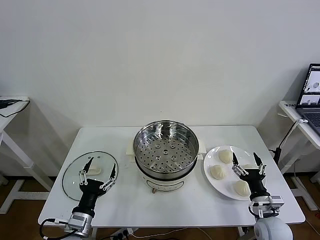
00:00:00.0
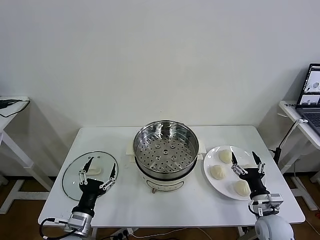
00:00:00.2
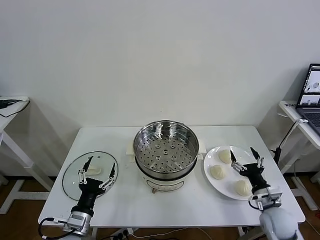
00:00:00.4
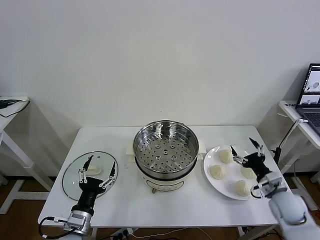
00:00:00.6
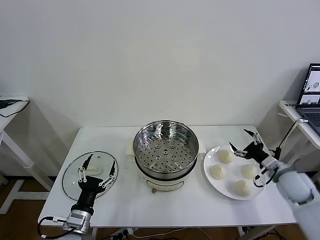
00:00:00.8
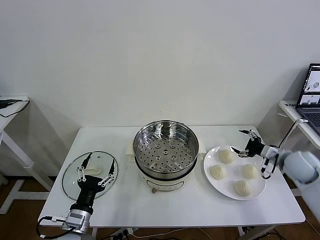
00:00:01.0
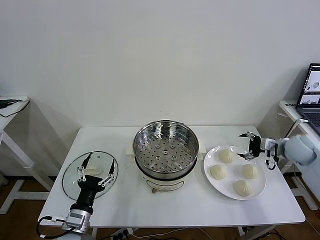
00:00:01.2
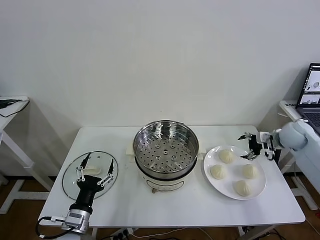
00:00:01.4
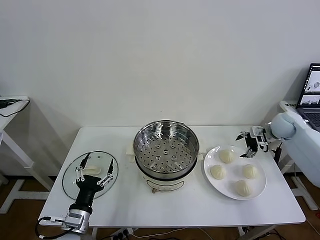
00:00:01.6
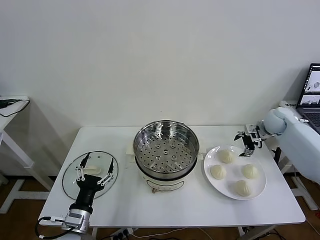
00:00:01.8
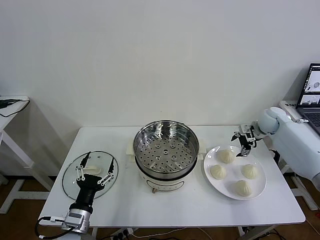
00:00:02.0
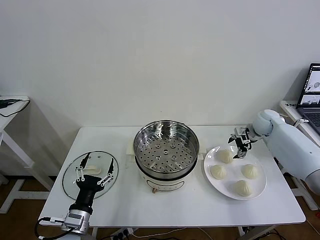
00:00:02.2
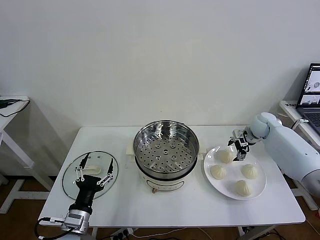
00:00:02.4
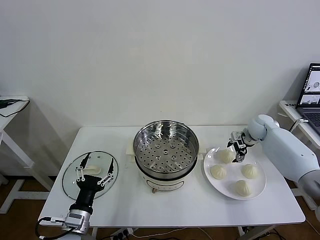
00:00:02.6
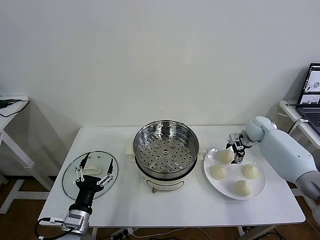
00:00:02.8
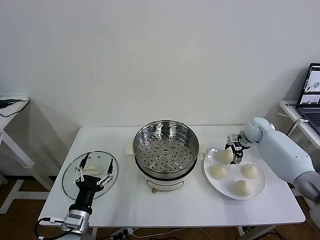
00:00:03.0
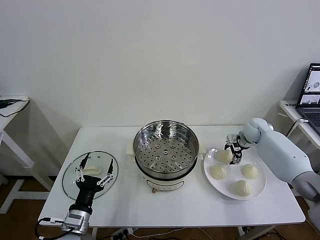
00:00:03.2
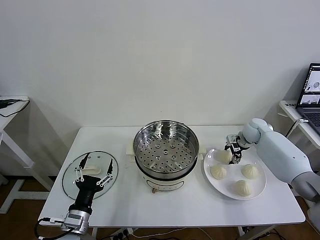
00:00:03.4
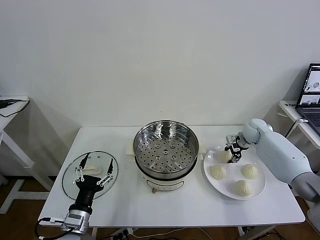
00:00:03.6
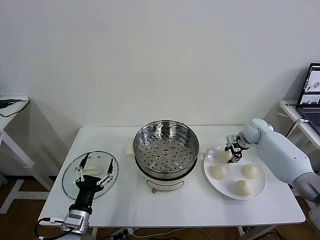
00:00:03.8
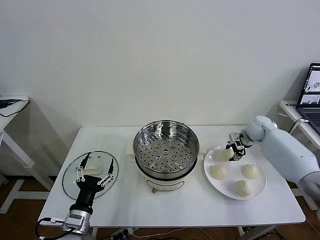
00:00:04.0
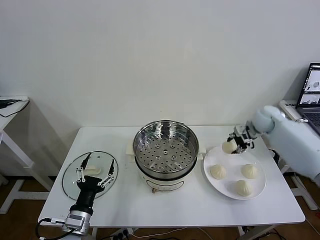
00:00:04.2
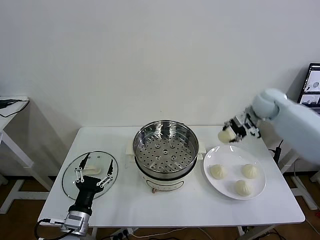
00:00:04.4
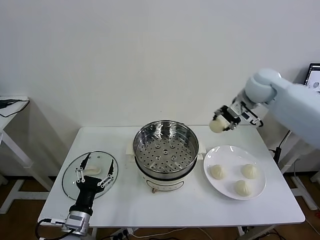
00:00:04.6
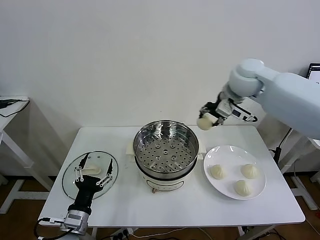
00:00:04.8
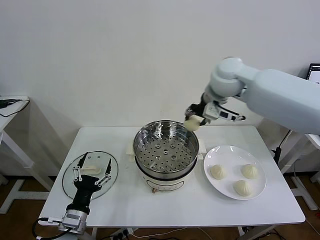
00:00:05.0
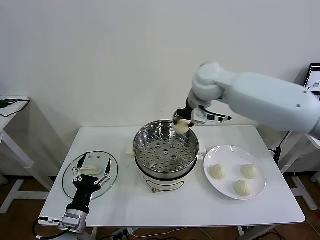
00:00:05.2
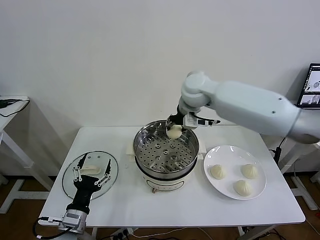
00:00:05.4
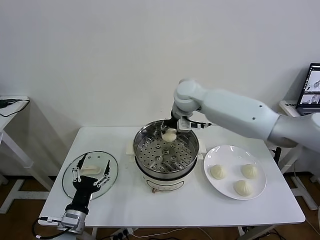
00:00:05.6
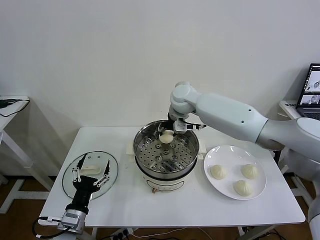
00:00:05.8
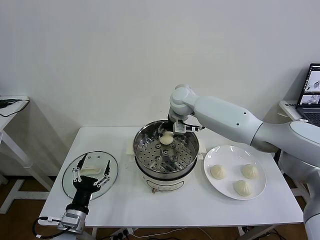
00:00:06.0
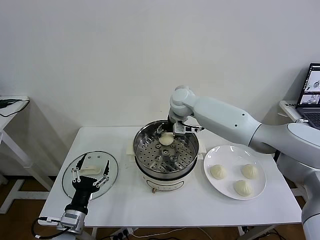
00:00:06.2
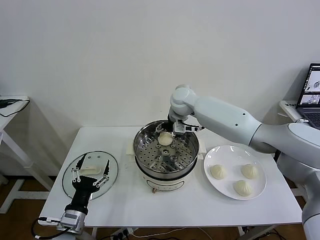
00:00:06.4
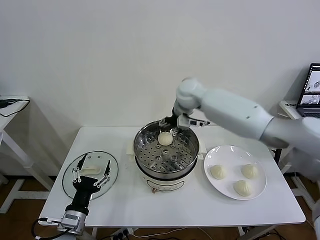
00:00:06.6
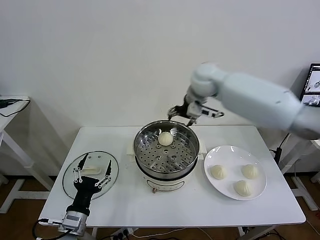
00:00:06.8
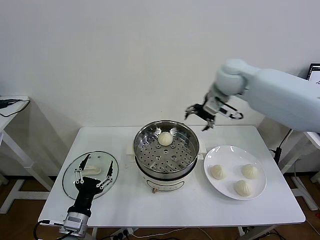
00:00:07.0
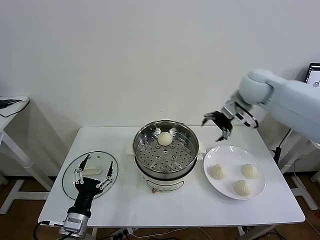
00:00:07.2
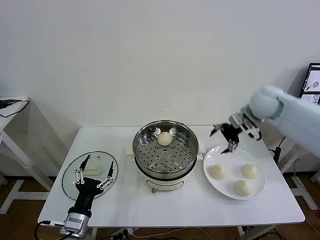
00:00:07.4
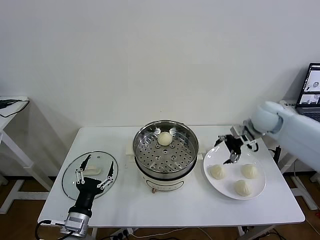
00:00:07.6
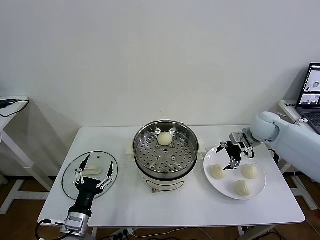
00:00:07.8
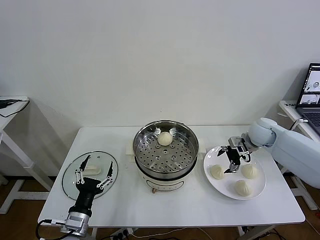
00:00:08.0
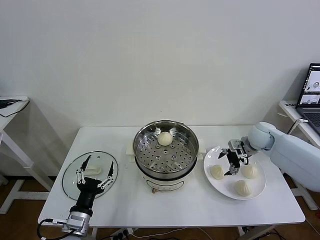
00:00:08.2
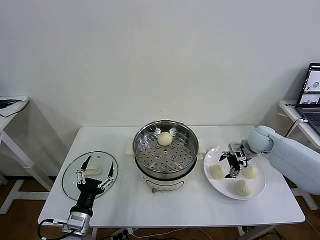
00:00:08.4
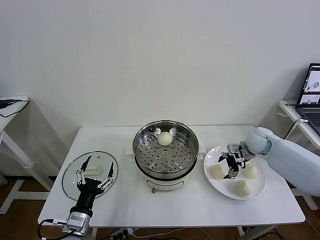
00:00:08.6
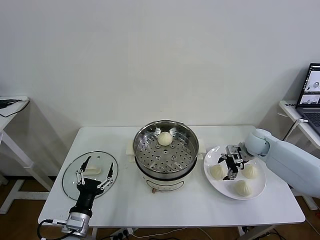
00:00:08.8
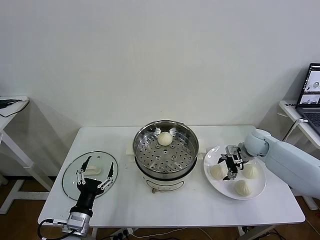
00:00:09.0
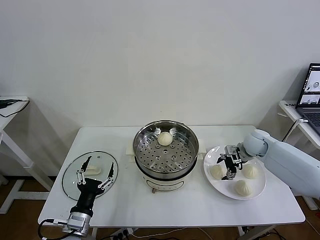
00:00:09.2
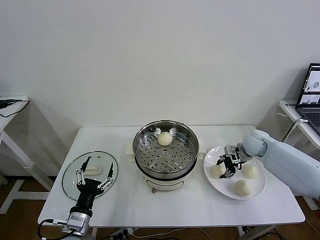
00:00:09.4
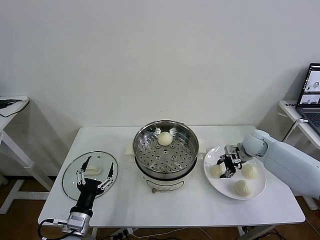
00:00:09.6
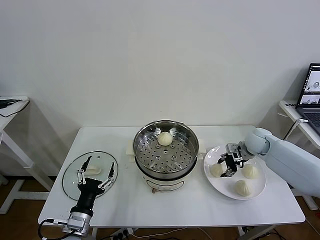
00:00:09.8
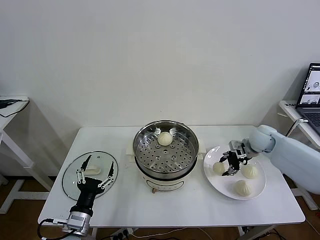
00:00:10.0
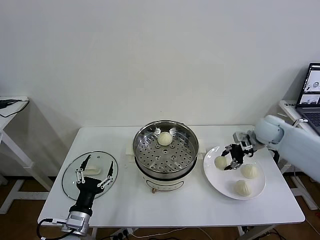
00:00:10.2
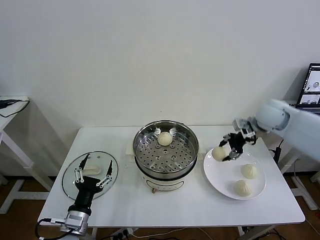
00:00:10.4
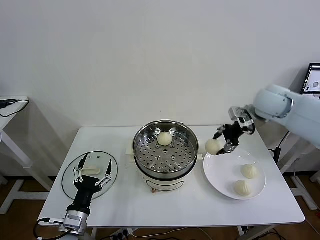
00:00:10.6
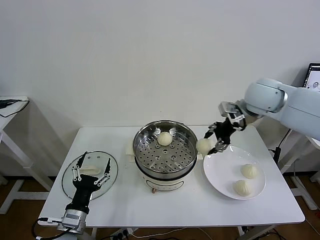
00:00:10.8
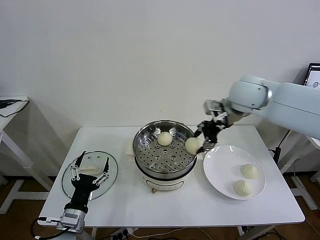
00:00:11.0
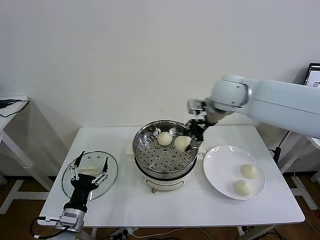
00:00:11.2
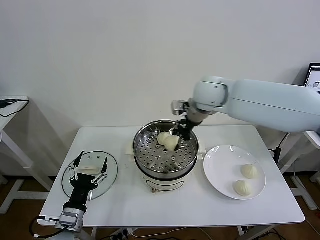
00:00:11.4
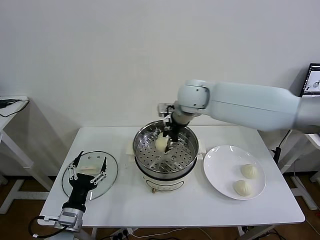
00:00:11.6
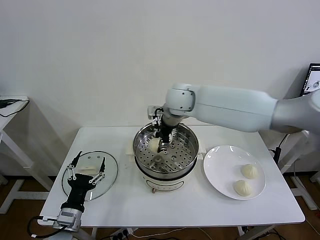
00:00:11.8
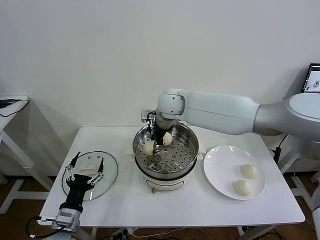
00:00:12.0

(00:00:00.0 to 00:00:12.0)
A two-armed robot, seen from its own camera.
Task of the whole recording: take steamed baozi put them in steamer then cover it.
Step, 00:00:00.0 - 00:00:03.4: Grasp the baozi in the plate with right gripper.
Step, 00:00:03.6 - 00:00:06.2: Place the baozi on the steamer with right gripper.
Step, 00:00:06.4 - 00:00:09.4: Grasp the baozi in the plate with right gripper.
00:00:01.6 - 00:00:03.0: The right gripper heads downward and to the left, covering approximately 10 cm.
00:00:03.0 - 00:00:04.4: The right gripper goes approximately 20 cm upward, and closes.
00:00:04.4 - 00:00:06.0: The right gripper moves to the left, approximately 25 cm.
00:00:06.0 - 00:00:07.6: The right gripper moves to the right, roughly 25 cm, and opens.
00:00:07.6 - 00:00:09.0: The right gripper travels downward by roughly 10 cm.
00:00:09.0 - 00:00:10.4: The right gripper is displaced upward by about 15 cm, and closes up.
00:00:10.4 - 00:00:12.0: The right gripper shifts about 30 cm to the left.

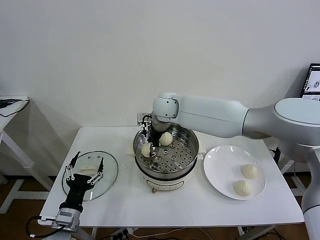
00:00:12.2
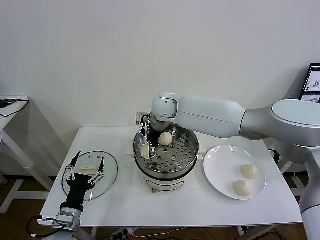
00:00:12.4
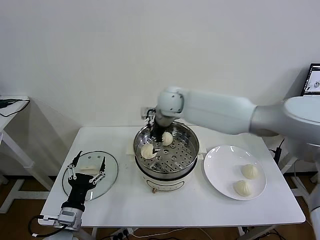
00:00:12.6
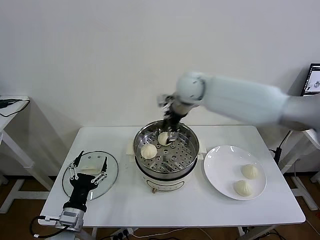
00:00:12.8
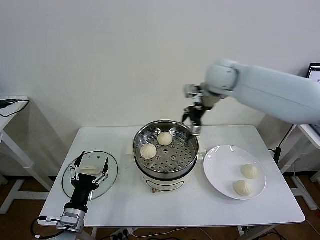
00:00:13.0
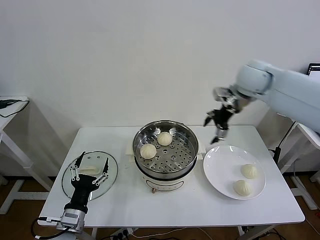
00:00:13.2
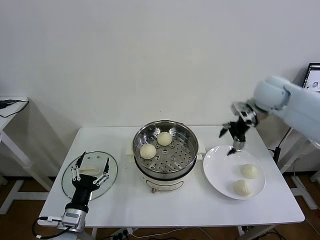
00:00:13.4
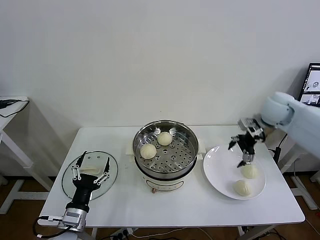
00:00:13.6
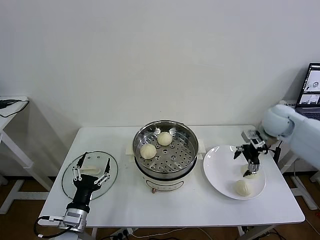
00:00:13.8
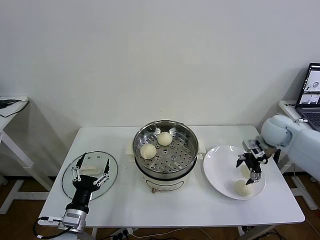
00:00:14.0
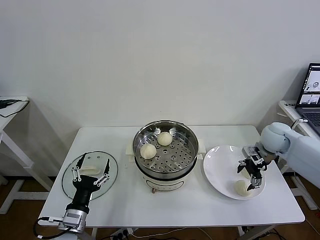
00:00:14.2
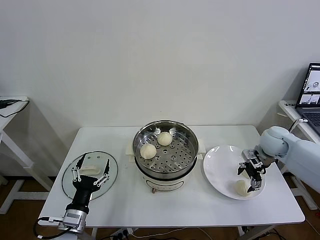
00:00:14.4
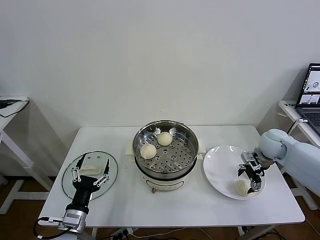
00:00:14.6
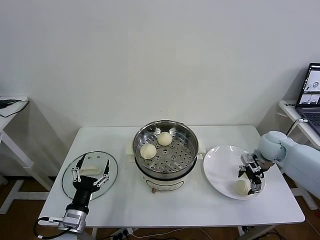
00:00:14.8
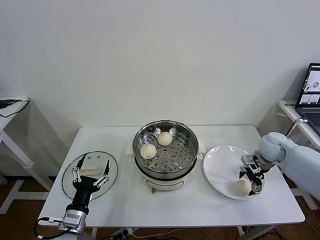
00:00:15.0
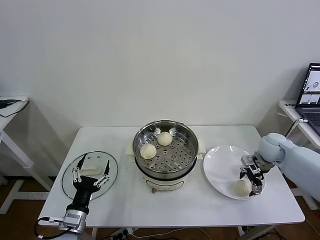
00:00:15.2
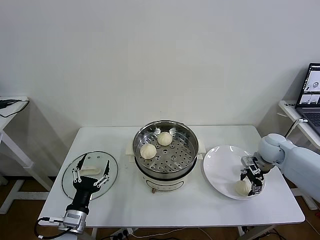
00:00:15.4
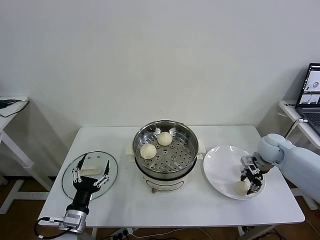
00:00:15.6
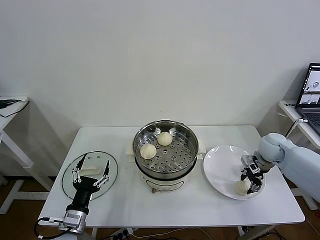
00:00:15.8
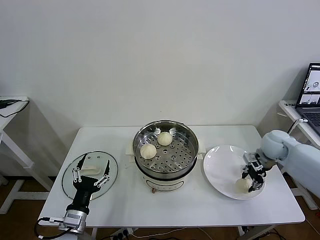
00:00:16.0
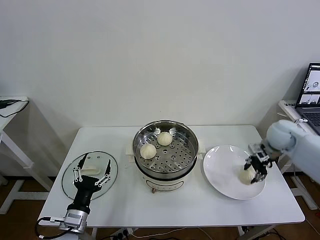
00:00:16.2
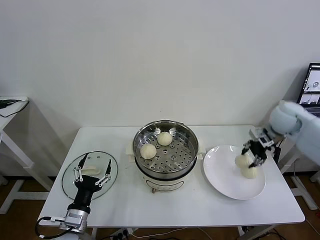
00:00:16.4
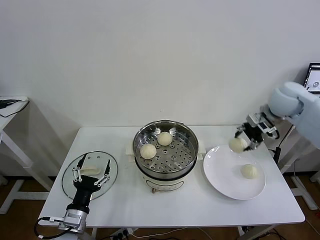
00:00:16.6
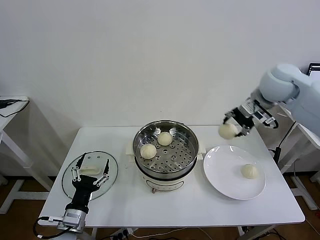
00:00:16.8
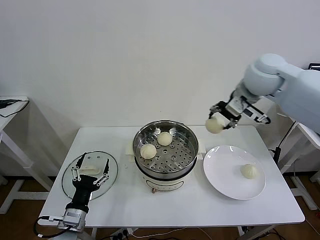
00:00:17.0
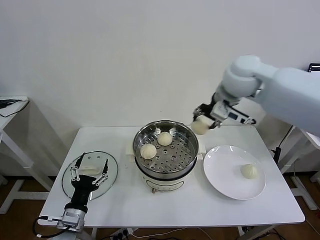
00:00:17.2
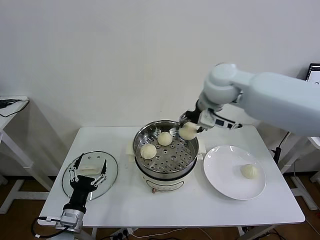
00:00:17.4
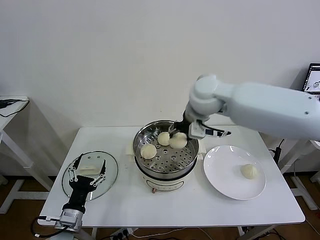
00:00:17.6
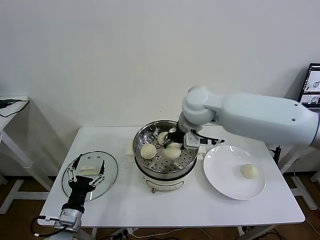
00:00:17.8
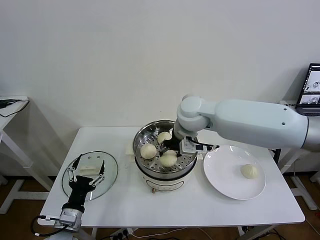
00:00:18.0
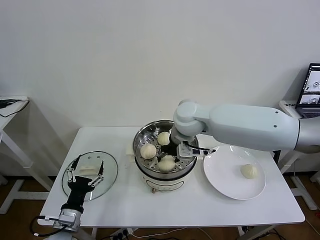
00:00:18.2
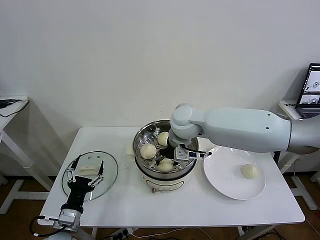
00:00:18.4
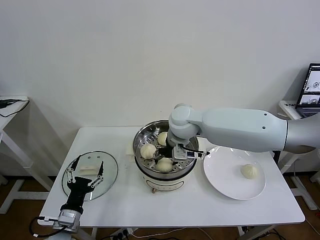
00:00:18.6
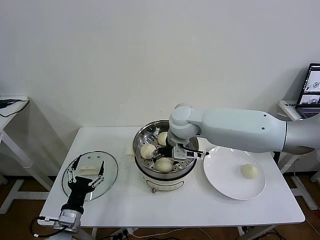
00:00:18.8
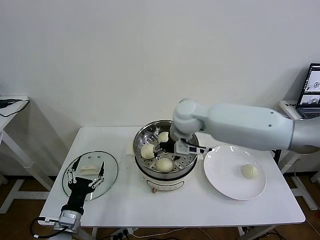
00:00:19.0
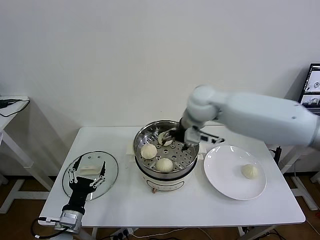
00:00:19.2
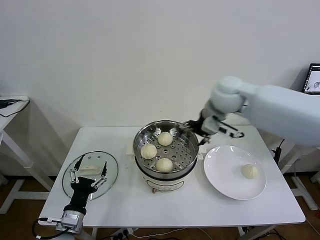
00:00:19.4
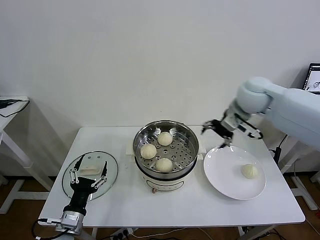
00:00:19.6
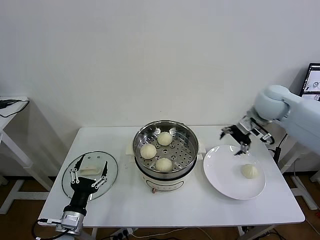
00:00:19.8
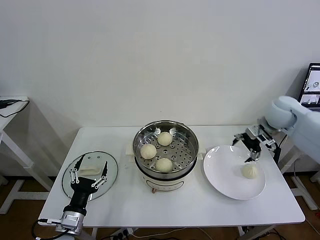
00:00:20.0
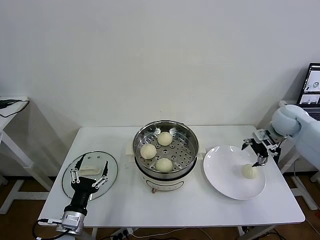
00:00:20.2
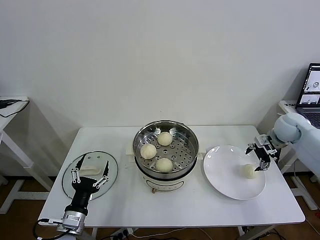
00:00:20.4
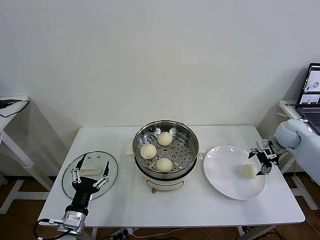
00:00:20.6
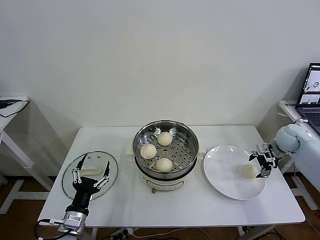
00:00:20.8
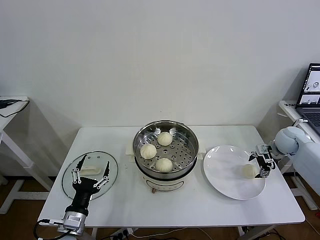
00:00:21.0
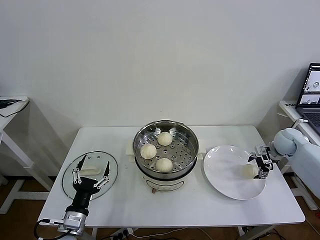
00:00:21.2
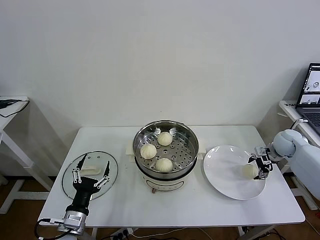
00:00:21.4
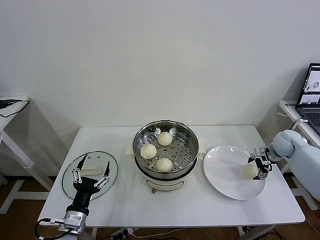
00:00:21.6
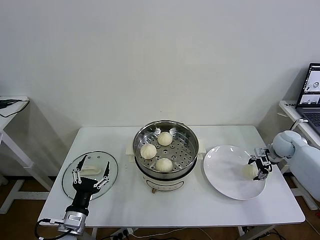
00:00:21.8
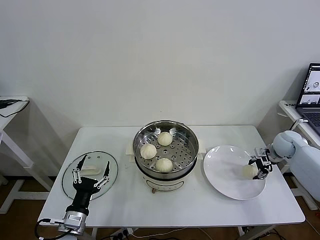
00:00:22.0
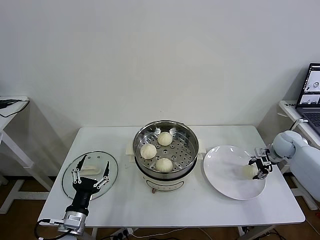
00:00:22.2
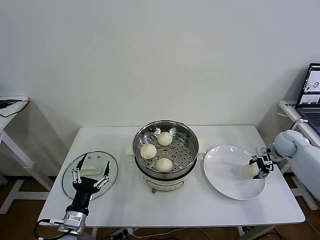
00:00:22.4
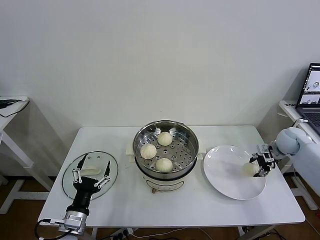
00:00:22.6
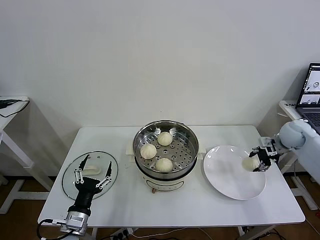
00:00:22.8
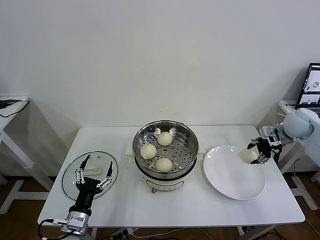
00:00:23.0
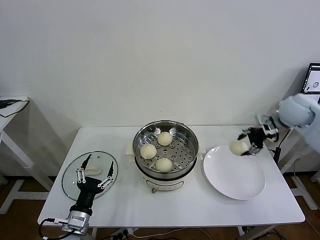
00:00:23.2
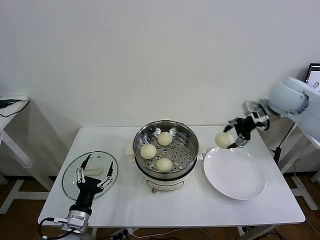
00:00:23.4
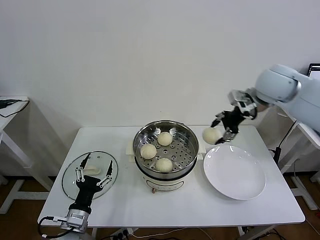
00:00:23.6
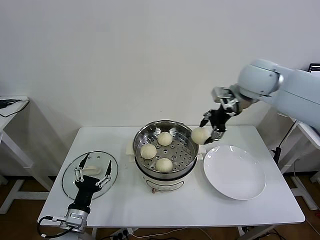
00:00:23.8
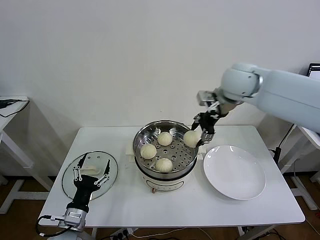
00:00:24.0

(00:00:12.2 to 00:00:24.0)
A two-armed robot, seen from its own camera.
Task of the whole recording: take steamed baozi put them in steamer then cover it.
Step, 00:00:12.6 - 00:00:15.6: Grasp the baozi in the plate with right gripper.
Step, 00:00:15.8 - 00:00:18.8: Place the baozi on the steamer with right gripper.
Step, 00:00:19.0 - 00:00:22.0: Grasp the baozi in the plate with right gripper.
00:00:12.2 - 00:00:13.6: The right gripper goes approximately 35 cm to the right, and opens.
00:00:13.6 - 00:00:15.2: The right gripper moves downward, roughly 15 cm.
00:00:15.2 - 00:00:16.6: The right gripper is displaced upward by approximately 20 cm, and closes its fingers.
00:00:16.6 - 00:00:18.2: The right gripper is displaced to the left by roughly 30 cm.
00:00:18.2 - 00:00:19.6: The right gripper moves to the right, roughly 20 cm, and opens.
00:00:19.6 - 00:00:21.0: The right gripper shifts approximately 30 cm to the right and downward.
00:00:22.6 - 00:00:24.0: The right gripper moves to the left and upward, some 35 cm.
